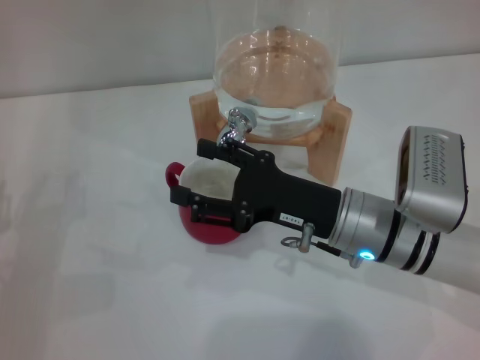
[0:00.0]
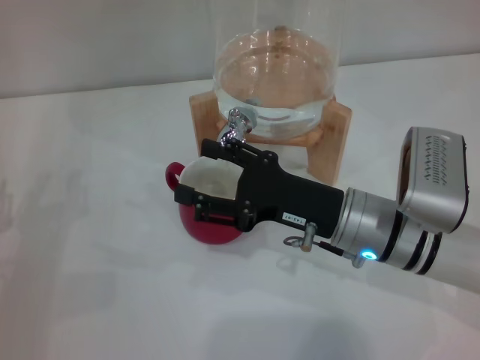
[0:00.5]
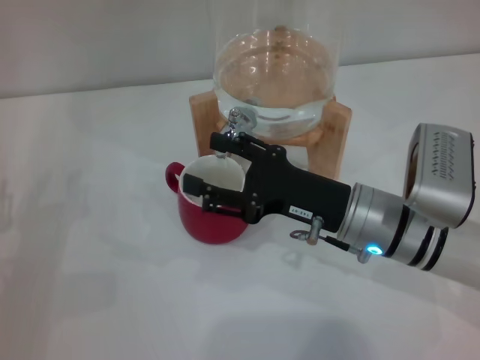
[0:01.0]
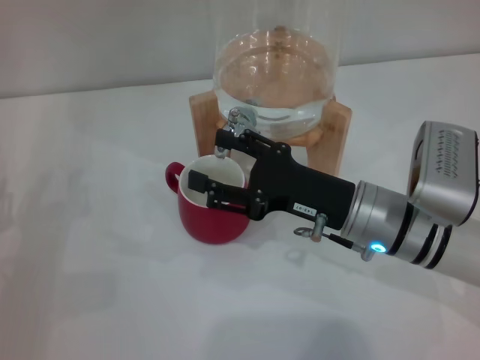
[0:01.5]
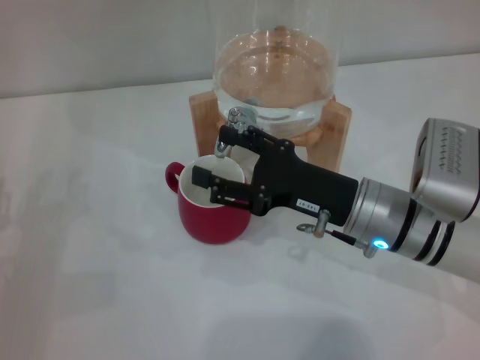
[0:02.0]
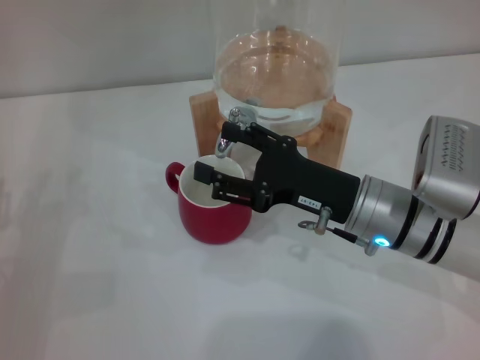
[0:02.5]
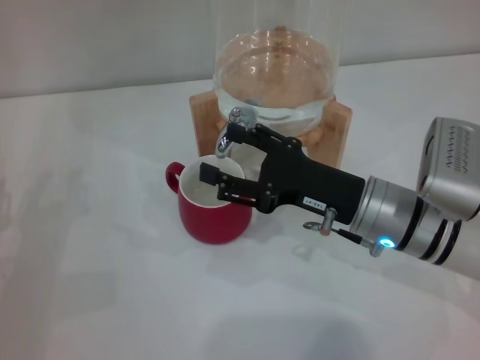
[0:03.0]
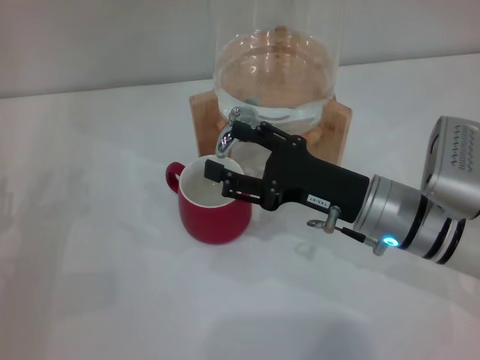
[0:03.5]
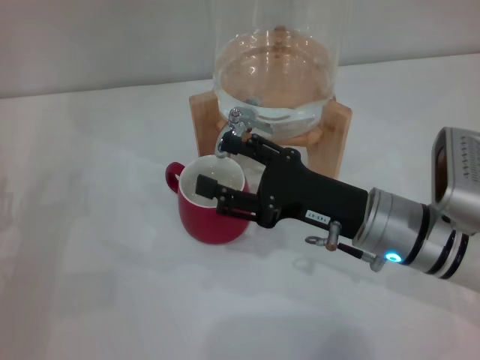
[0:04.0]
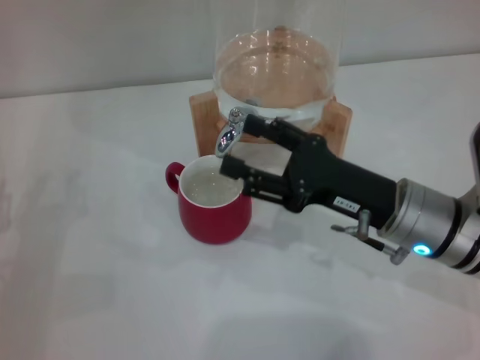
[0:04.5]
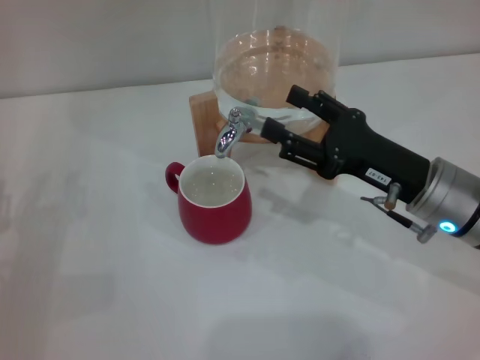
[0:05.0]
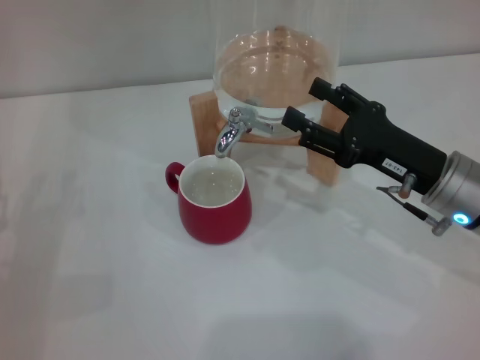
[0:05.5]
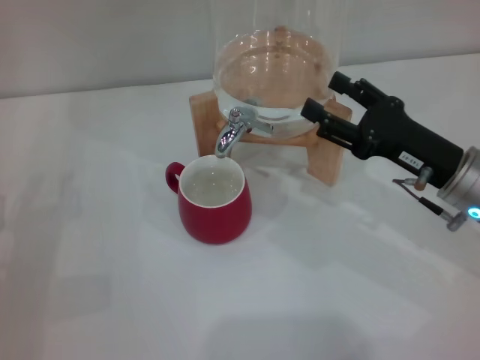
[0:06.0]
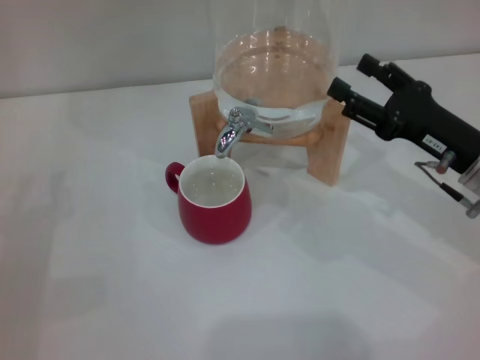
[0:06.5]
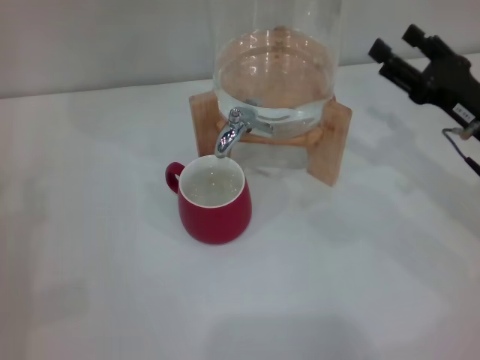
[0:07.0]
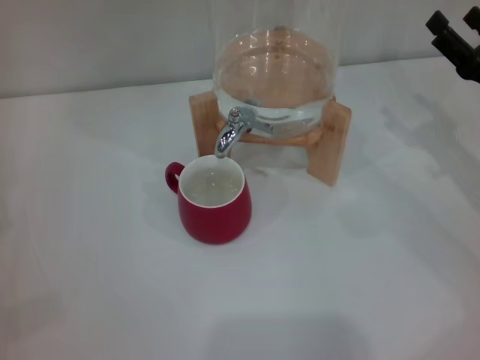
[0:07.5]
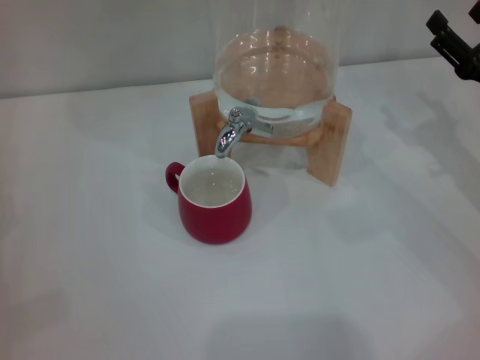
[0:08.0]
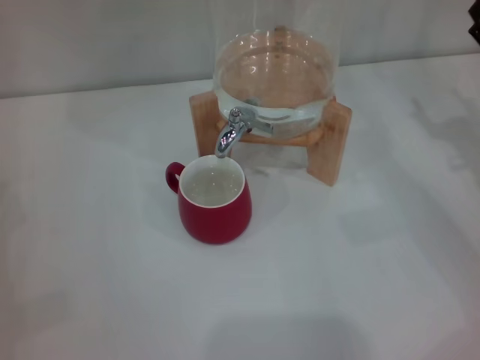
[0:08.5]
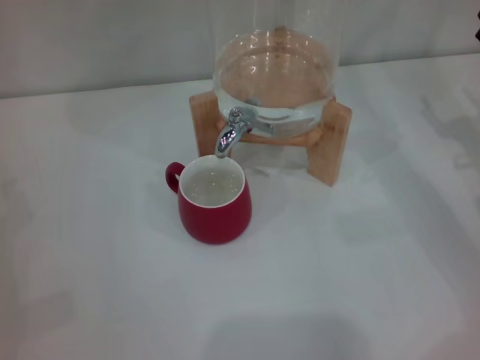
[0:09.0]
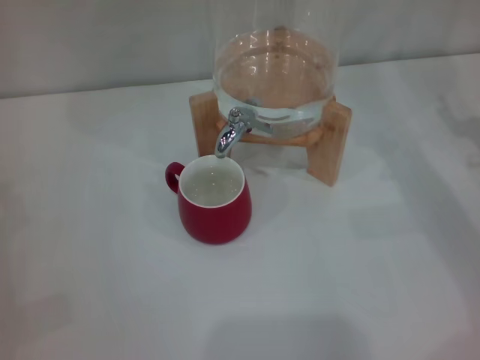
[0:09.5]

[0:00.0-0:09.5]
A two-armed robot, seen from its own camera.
Task of the whole recording: the left gripper pick up the red cup and place it horizontally under the faucet, the right gripper turn on the faucet to fill the cup, and then turn off the faucet.
Step, 0:00.0 to 0:04.0: Close the dispenser valve with the right gripper.
0:00.0 to 0:04.0: The grippers stay close to where they were, moving slightly.
0:04.0 to 0:05.5: The right gripper heads to the right, covering some 5 cm.
0:05.5 to 0:07.5: The right gripper is displaced to the right by approximately 10 cm.
